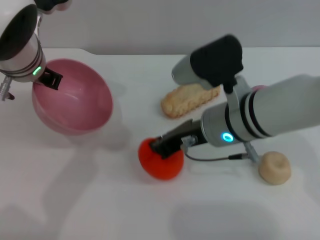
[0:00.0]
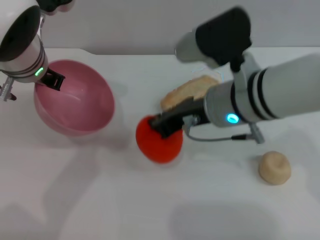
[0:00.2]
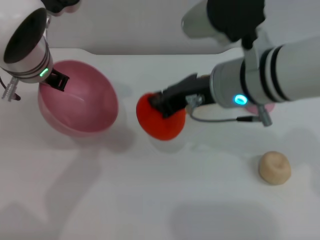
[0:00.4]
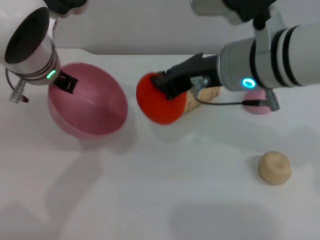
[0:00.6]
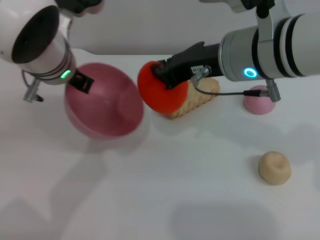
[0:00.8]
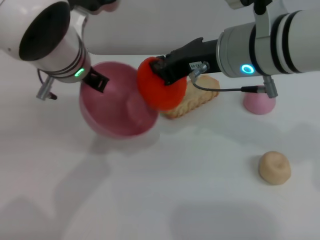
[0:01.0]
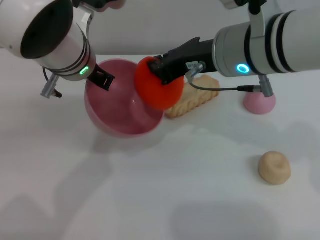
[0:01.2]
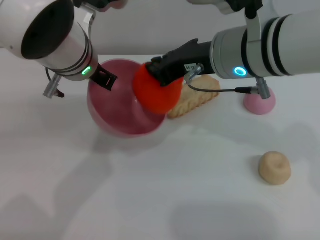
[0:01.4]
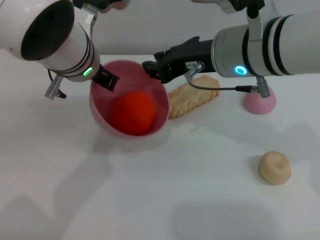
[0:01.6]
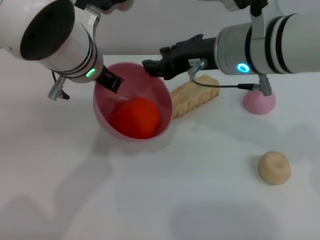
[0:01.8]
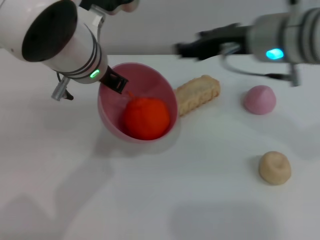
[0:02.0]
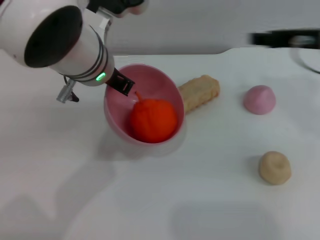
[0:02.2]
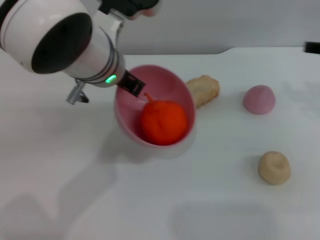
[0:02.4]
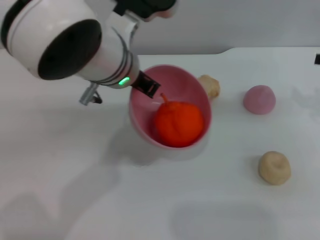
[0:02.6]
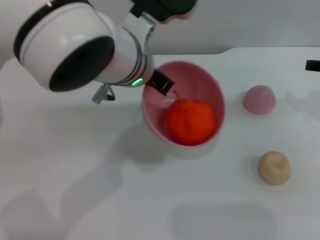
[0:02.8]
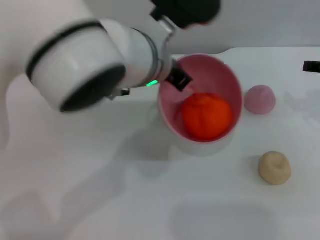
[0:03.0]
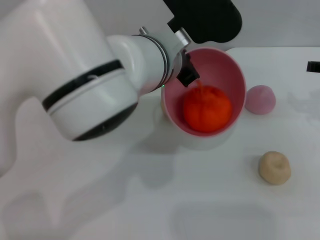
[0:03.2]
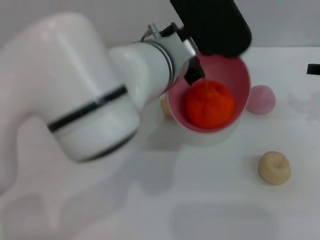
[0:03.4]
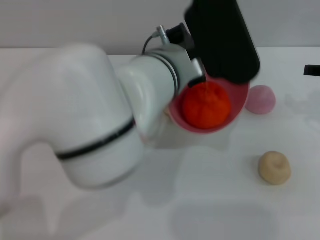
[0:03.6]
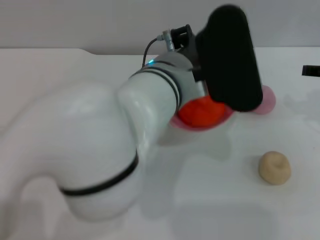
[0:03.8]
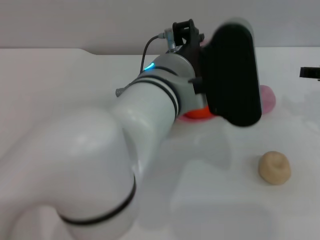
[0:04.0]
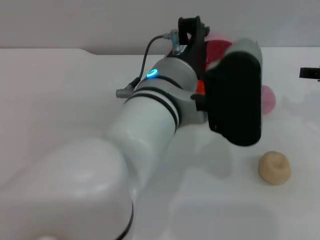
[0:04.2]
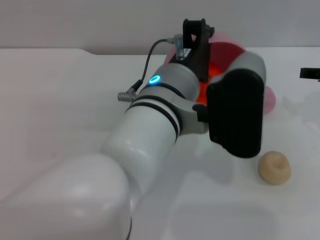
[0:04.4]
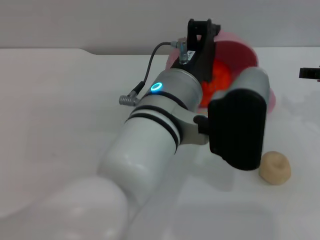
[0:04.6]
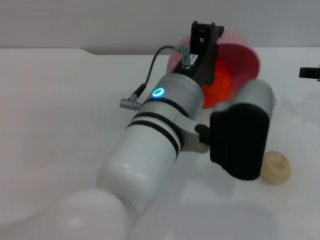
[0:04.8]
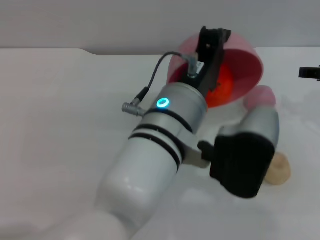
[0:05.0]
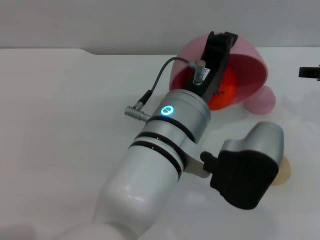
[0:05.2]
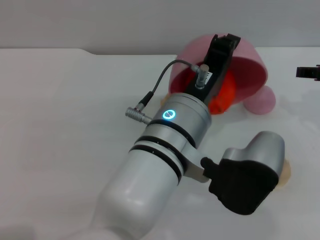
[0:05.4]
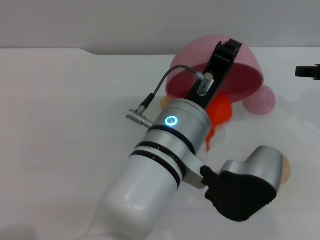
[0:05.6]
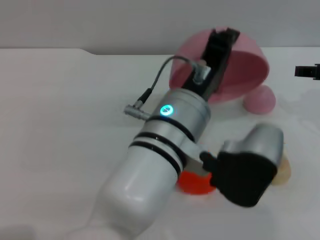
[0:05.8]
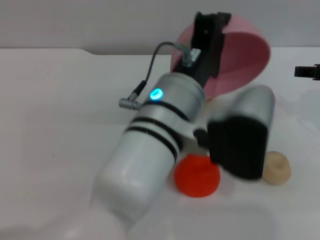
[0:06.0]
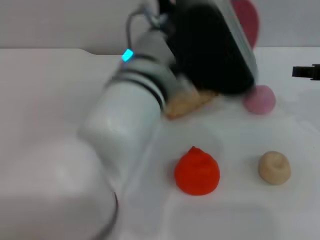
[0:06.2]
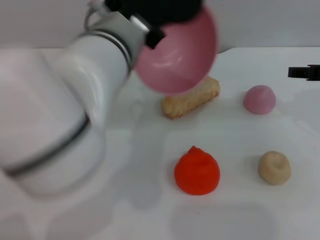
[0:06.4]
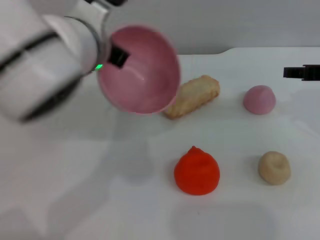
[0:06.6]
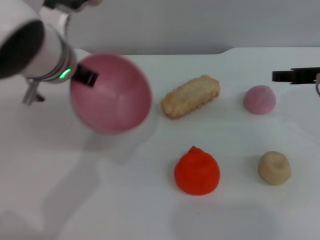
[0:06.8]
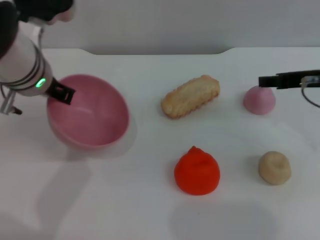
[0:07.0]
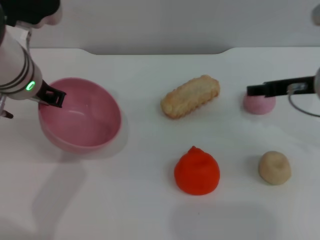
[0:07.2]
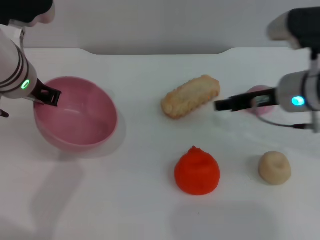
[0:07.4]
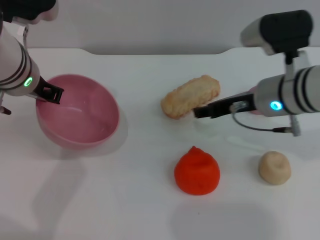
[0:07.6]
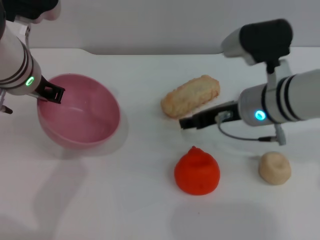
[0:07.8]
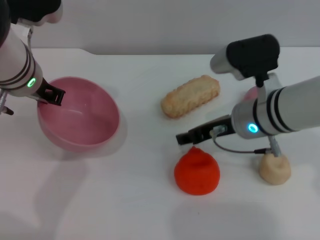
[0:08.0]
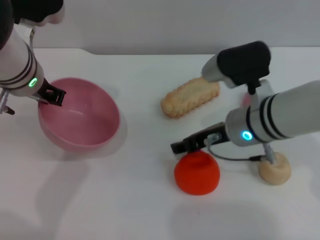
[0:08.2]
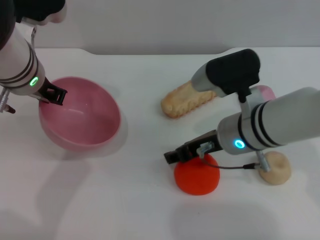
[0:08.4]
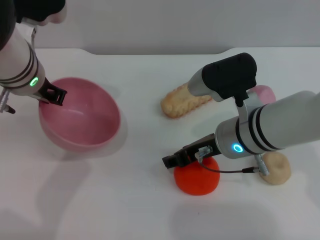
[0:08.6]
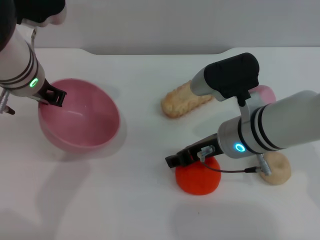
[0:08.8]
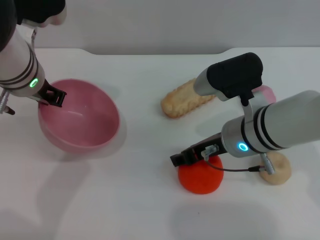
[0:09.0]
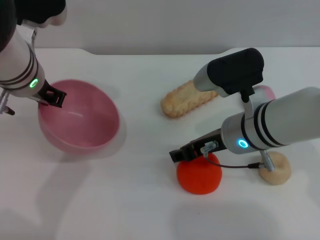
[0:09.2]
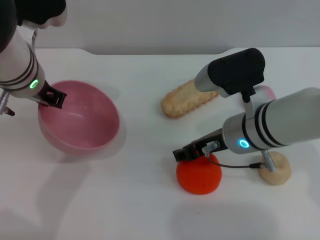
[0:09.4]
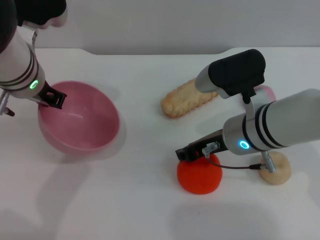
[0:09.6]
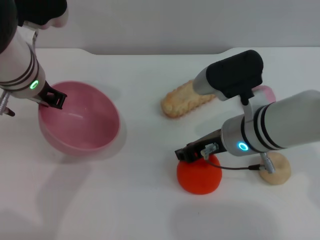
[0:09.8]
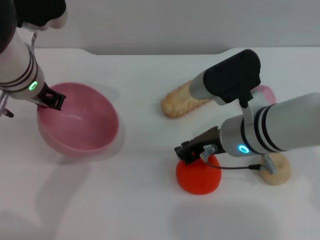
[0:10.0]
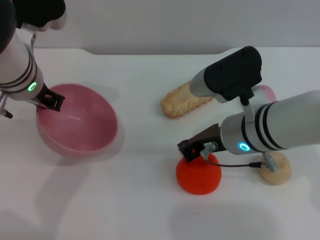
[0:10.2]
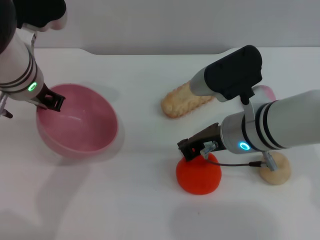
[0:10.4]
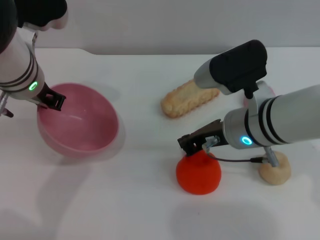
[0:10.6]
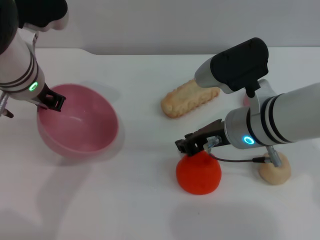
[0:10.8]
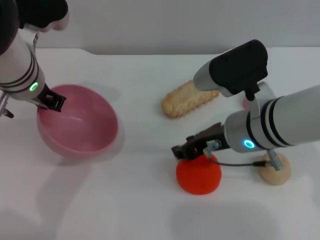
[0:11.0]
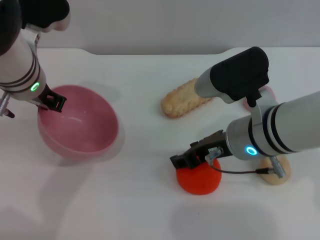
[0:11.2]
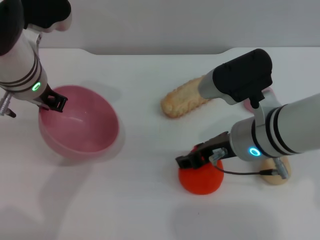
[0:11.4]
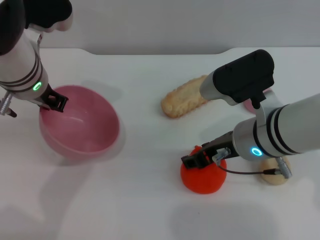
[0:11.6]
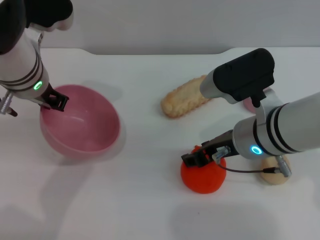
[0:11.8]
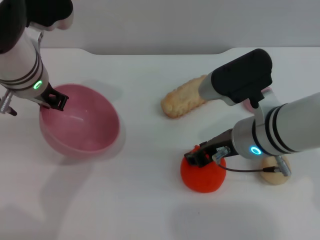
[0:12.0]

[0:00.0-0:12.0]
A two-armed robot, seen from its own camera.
Task of the whole recording: put the orange into the pink bowl and pour it out repeatedly.
Step, 0:00.4 to 0:02.0: Place the orange into the bowl.
Step, 0:02.2 to 0:06.0: Pour the orange out of the bowl.
0:00.0 to 0:01.6: The right gripper is displaced upward by roughly 10 cm, while the left gripper goes approximately 5 cm to the right.
0:01.6 to 0:03.0: The left gripper heads to the right, covering some 5 cm. The right gripper goes some 20 cm to the right, and opens.
0:03.0 to 0:04.4: The left gripper heads backward, covering some 5 cm.
0:06.0 to 0:07.6: The left gripper shifts approximately 20 cm to the left and forward; the right gripper moves to the left, about 15 cm.
0:07.6 to 0:09.0: The right gripper changes place by approximately 5 cm.
0:09.0 to 0:10.4: The right gripper closes its fingers.
0:10.4 to 0:12.0: The right gripper opens its fingers.

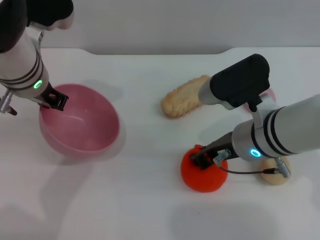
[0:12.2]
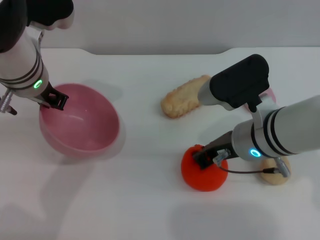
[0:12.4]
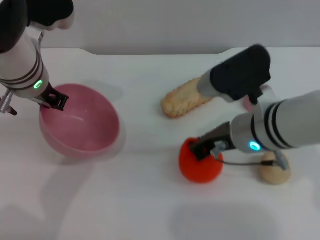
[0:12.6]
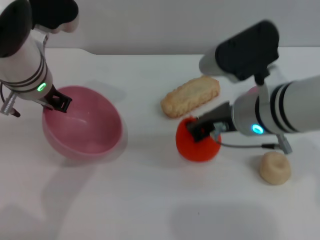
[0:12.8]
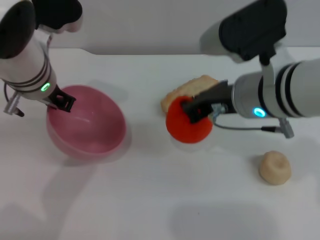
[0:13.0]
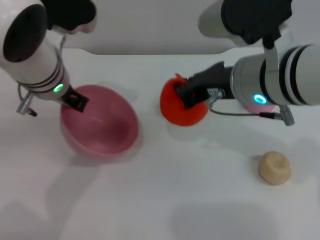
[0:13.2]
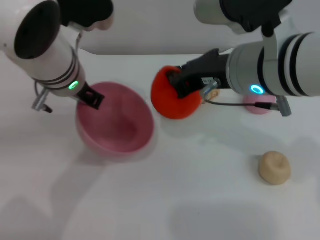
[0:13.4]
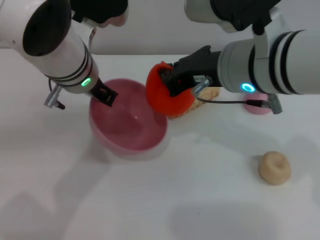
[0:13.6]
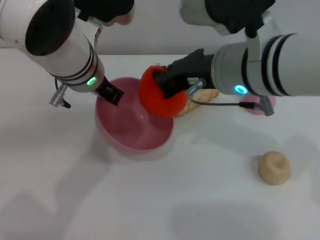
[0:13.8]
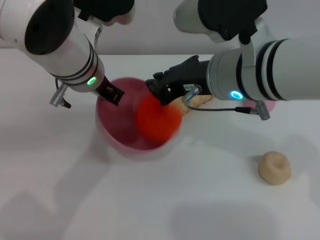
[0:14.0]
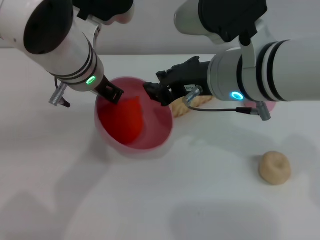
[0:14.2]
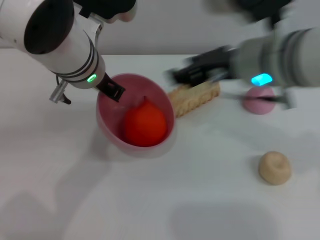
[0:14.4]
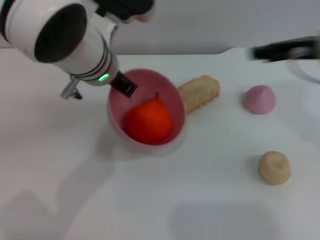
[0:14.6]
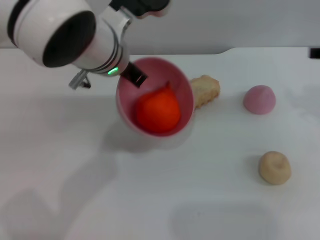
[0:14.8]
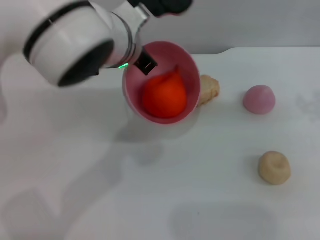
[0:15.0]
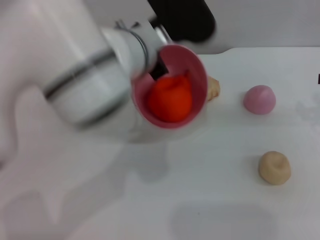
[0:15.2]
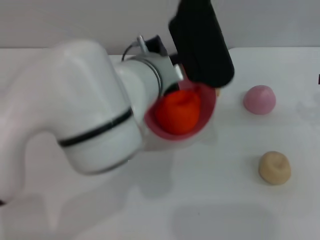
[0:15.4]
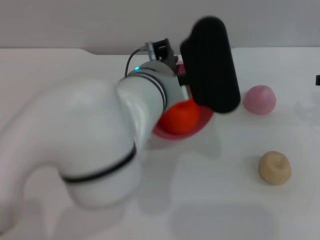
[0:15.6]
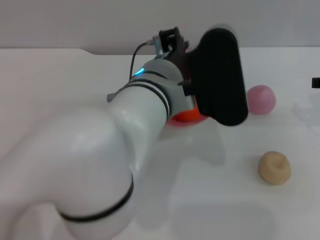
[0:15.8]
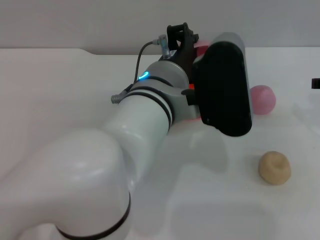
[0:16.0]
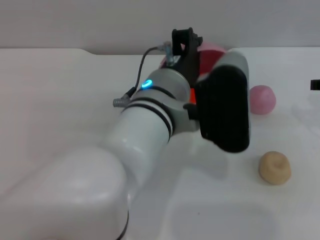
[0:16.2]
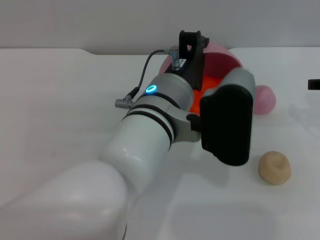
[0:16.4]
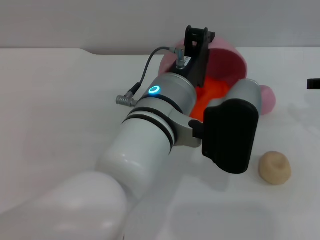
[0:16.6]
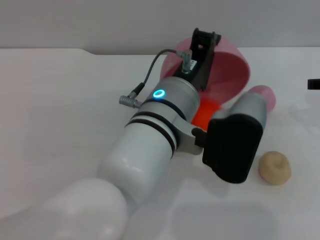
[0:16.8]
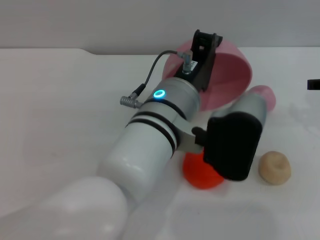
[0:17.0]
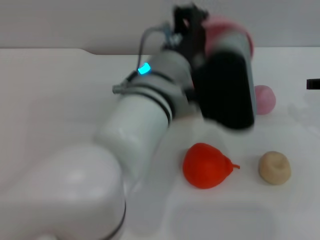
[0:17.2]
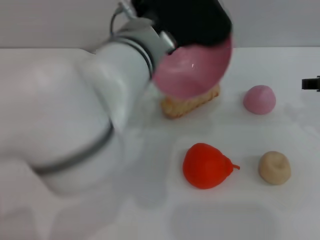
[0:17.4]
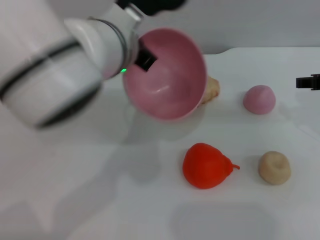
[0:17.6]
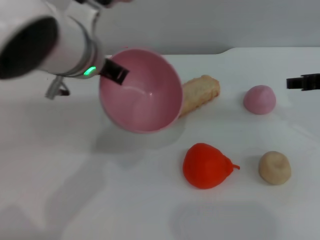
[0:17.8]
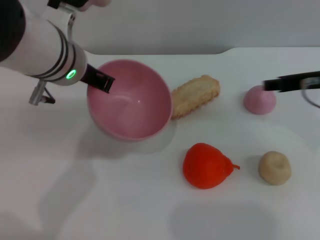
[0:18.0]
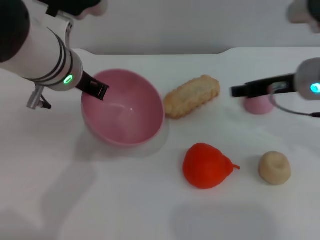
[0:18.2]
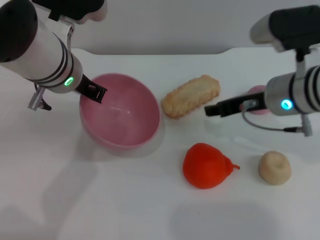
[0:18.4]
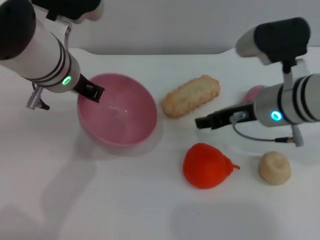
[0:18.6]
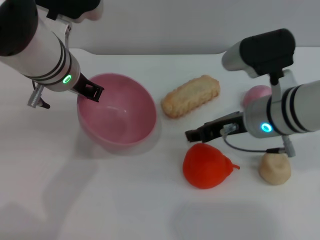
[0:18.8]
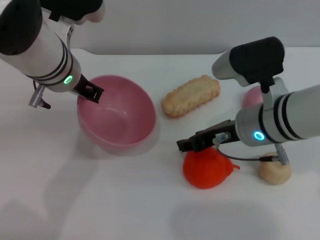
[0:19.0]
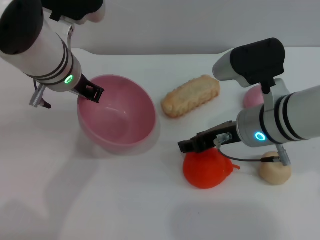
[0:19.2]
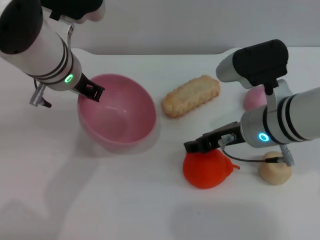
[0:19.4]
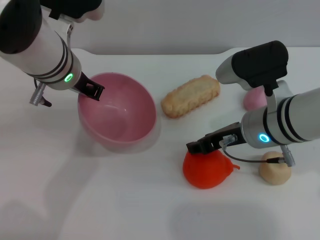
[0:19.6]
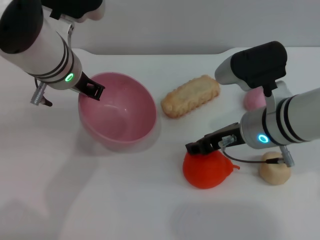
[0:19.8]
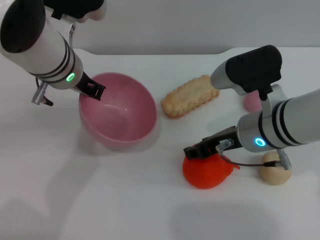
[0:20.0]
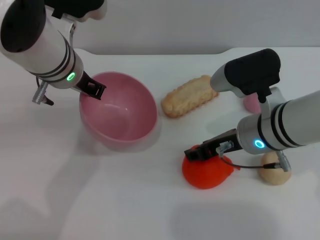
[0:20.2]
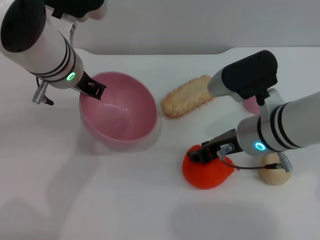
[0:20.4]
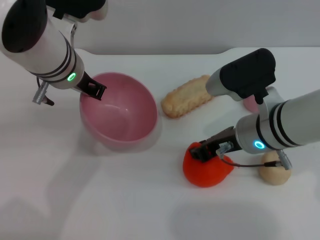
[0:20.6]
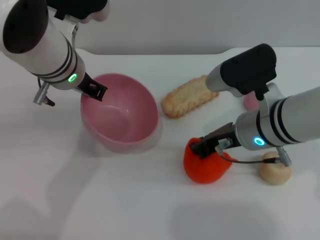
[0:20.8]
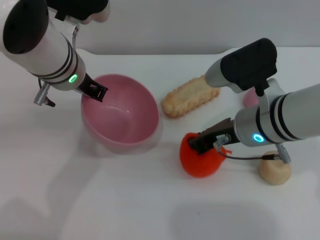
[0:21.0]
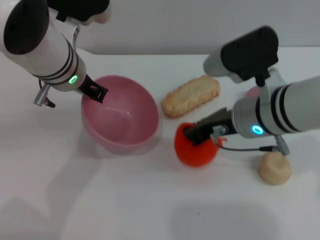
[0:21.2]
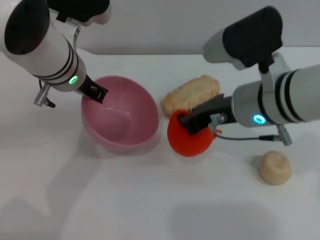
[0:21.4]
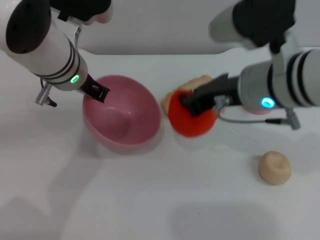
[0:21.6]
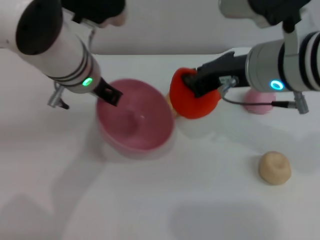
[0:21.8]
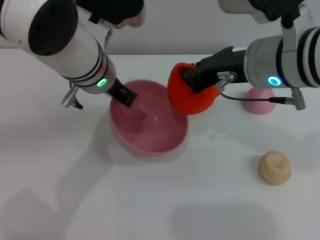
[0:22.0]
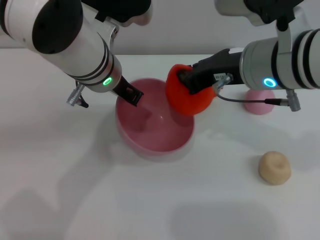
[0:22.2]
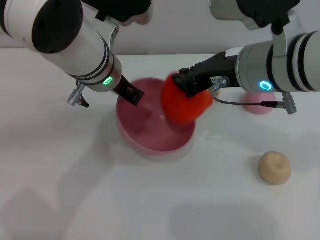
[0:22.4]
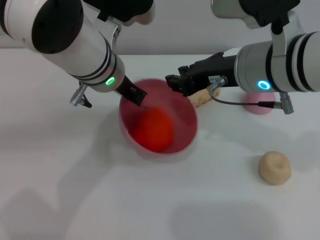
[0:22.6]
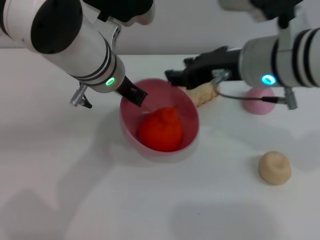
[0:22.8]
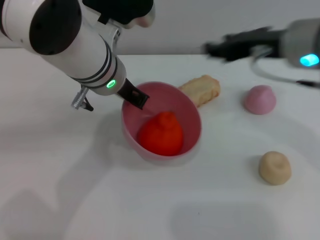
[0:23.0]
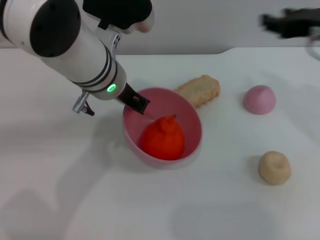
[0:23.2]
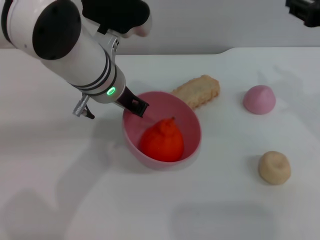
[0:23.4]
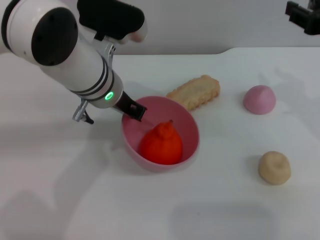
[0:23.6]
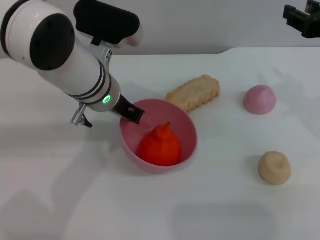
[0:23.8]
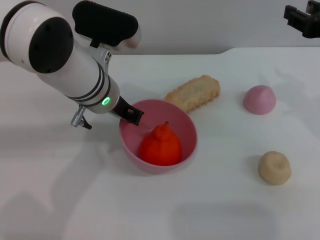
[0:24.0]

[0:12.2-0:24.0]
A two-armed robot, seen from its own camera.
Task of the whole recording: put the orange into the pink bowl and pour it out repeatedly.
Step, 0:13.2 to 0:14.4: Place the orange into the bowl.
Step, 0:14.6 to 0:17.2: Pour the orange out of the bowl.
Step, 0:17.4 to 0:21.2: Pick up the orange with the right gripper.
Step, 0:21.4 to 0:22.8: Place the orange into the bowl.
0:12.2 to 0:13.6: The right gripper shifts some 10 cm upward, and closes its fingers. The left gripper is displaced to the right by some 5 cm.
0:13.6 to 0:15.2: The right gripper heads to the right, covering some 20 cm, and opens. The left gripper travels to the right by approximately 5 cm.
0:15.2 to 0:16.6: The left gripper heads backward, covering roughly 5 cm.
0:16.6 to 0:18.2: The left gripper shifts roughly 15 cm to the left, forward and upward; the right gripper moves to the left, approximately 10 cm.
0:18.2 to 0:19.6: The right gripper moves to the left, approximately 5 cm.
0:19.6 to 0:21.0: The right gripper closes.
0:21.0 to 0:22.6: The right gripper is displaced upward by about 10 cm.
0:22.6 to 0:24.0: The right gripper shifts some 15 cm to the right, and opens up.
